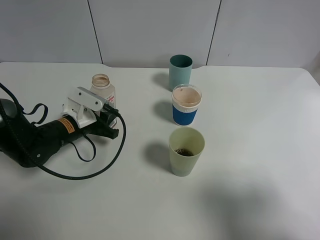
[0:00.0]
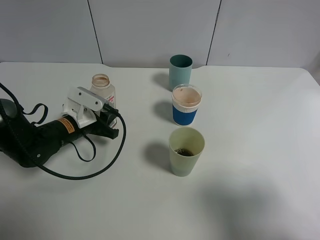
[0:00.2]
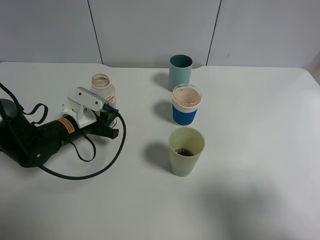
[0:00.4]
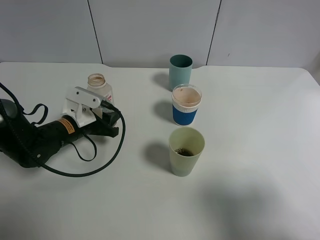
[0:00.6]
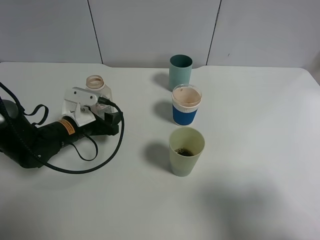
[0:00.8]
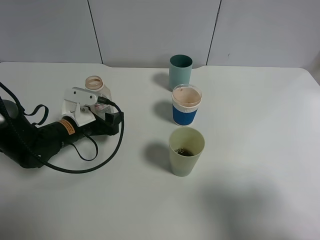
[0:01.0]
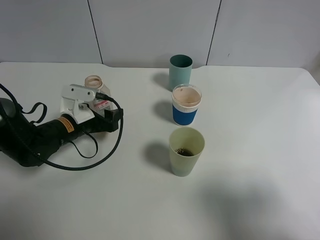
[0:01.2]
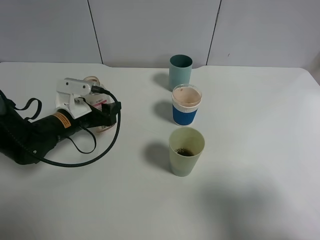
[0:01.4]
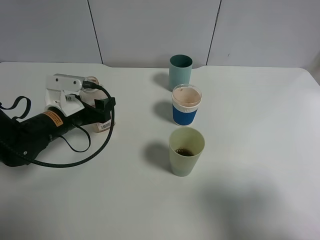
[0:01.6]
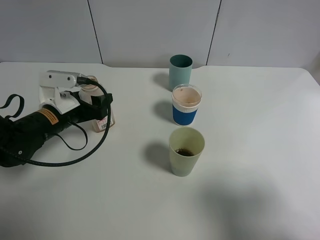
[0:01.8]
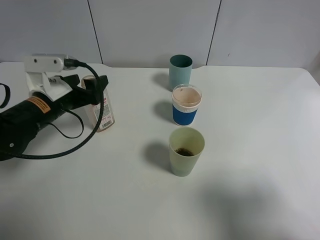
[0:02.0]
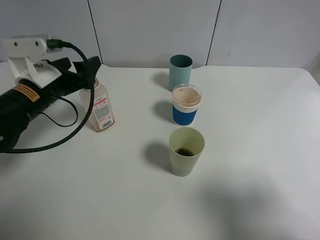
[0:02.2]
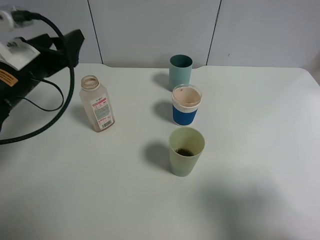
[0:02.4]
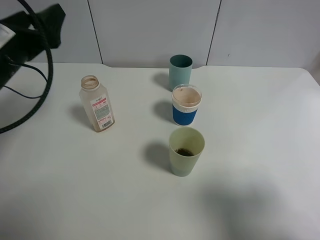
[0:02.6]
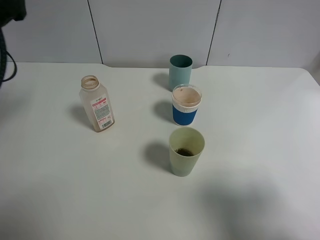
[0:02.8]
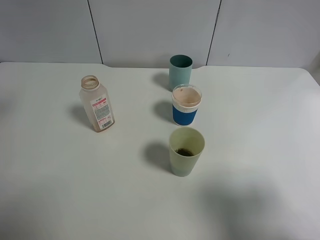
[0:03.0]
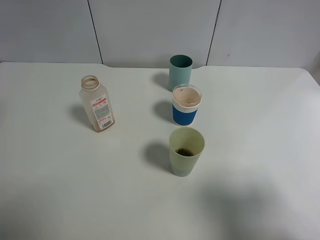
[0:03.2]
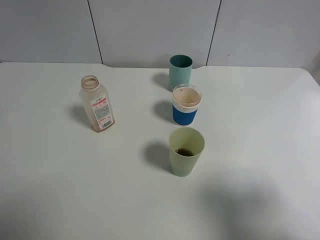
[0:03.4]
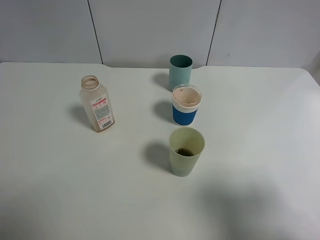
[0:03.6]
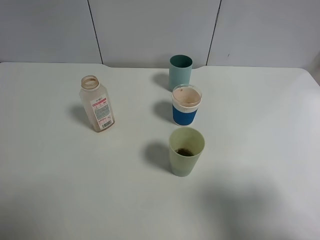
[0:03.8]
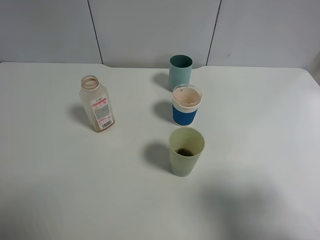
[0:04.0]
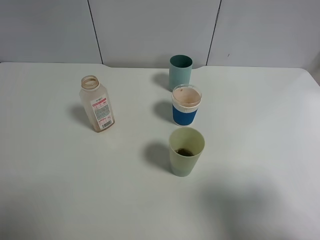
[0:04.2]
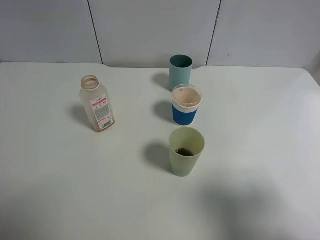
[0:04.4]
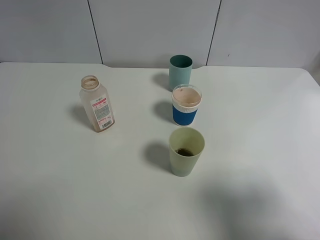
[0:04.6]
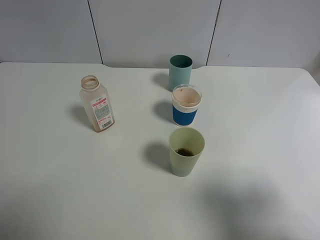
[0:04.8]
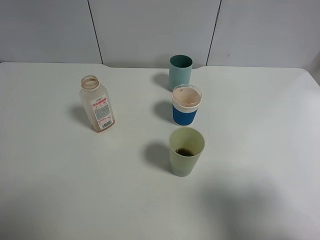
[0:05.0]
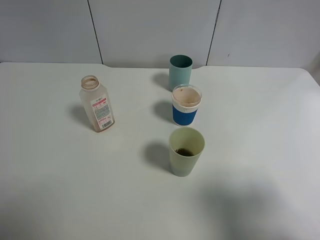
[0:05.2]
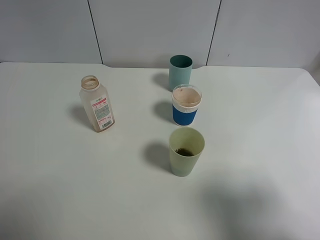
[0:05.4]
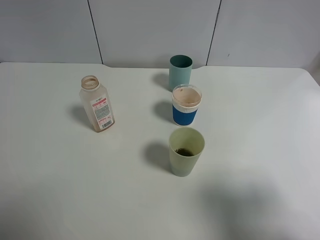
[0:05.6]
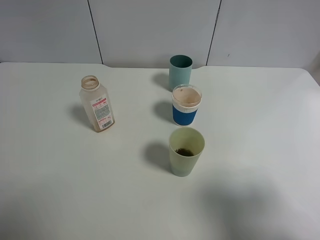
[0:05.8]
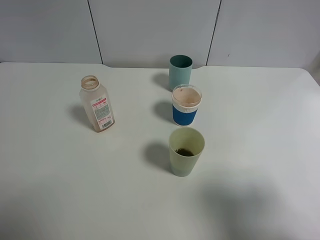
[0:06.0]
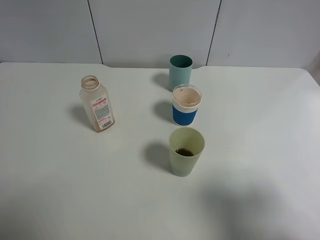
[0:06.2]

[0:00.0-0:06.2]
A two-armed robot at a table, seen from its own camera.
Task of the whole recording: use a gripper to hold the bottle of the drink and pour it into a random cup.
Step, 0:00.0 to 0:02.2: Place the cranberry juice bottle on the table with the left gripper.
0:00.0 to 0:01.6: The left gripper opens up.
0:01.6 to 0:03.2: The left gripper travels upward, backward and to the left by some 25 cm.
